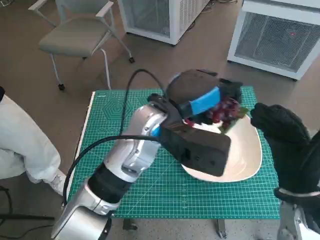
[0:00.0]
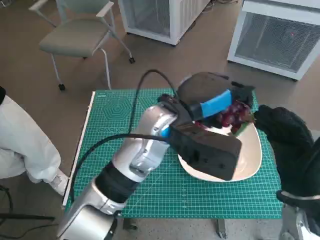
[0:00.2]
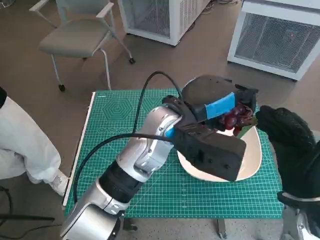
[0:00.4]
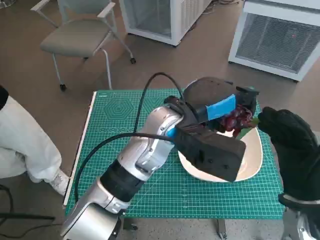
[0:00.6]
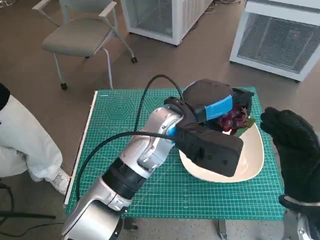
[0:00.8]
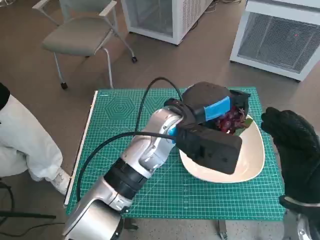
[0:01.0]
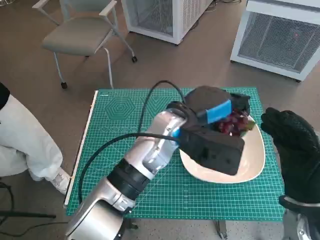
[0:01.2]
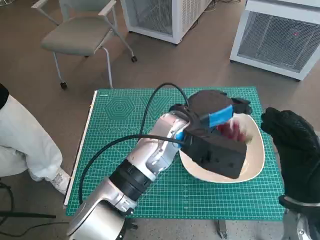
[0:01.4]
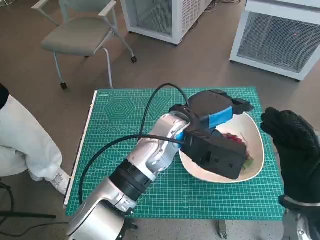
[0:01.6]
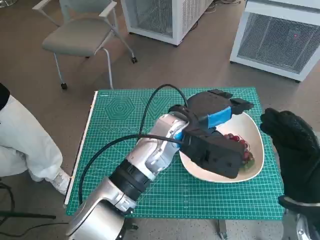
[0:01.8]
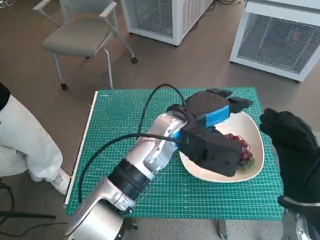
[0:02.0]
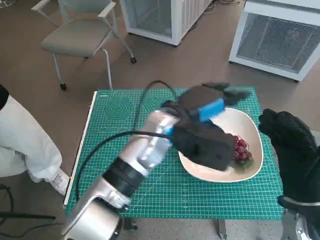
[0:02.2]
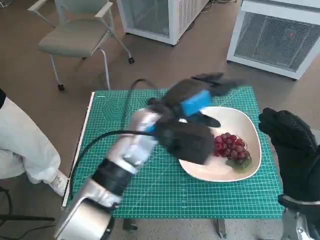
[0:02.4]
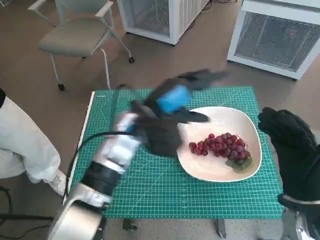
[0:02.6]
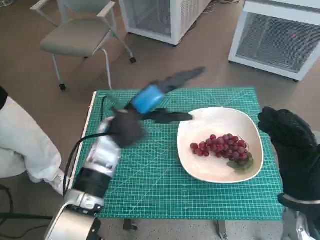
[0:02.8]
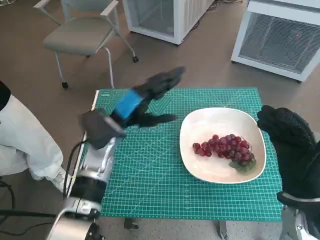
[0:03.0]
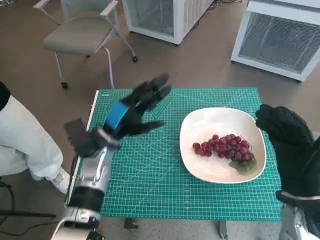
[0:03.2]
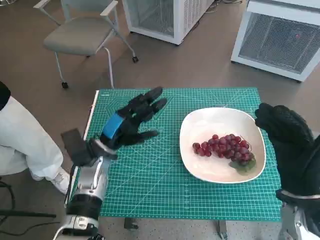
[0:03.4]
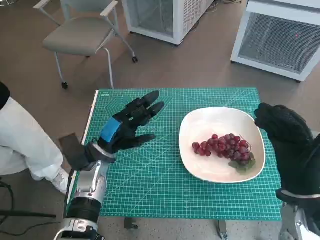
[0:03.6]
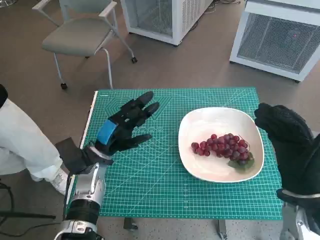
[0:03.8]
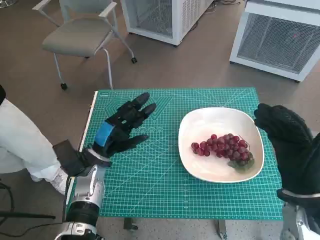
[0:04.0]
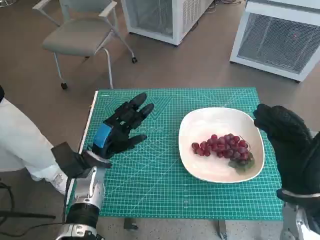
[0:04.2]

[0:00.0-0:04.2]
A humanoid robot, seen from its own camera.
Task of the whole recording: Pick up the grapes and put them on the plate.
1.4 to 2.8 s: The left hand shifts approximately 10 cm to the left.
2.8 to 4.2 s: The left hand is displaced downward and to the left by roughly 15 cm.

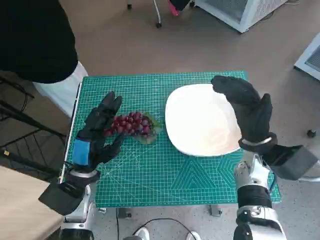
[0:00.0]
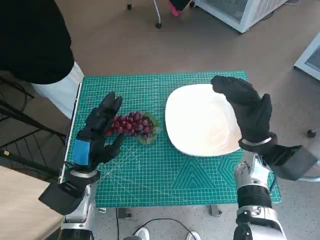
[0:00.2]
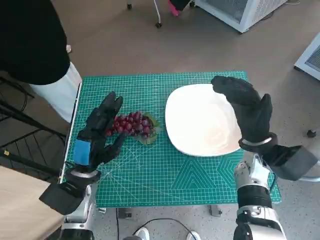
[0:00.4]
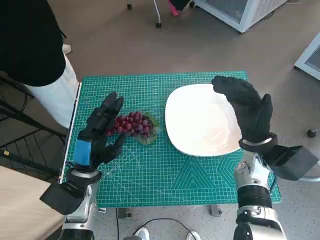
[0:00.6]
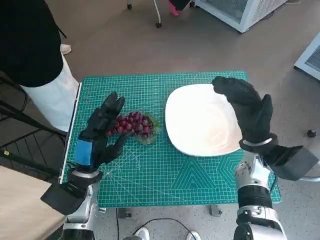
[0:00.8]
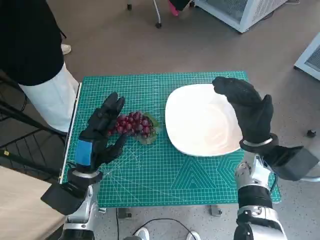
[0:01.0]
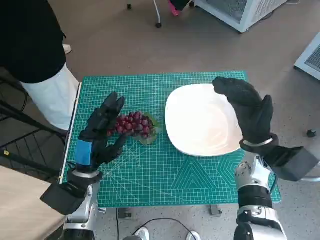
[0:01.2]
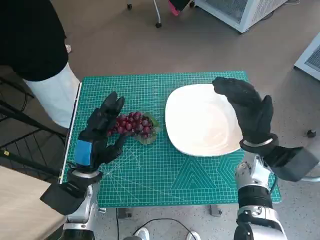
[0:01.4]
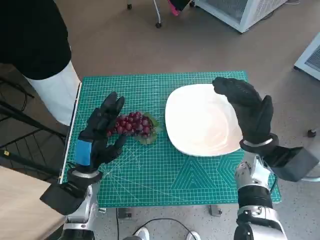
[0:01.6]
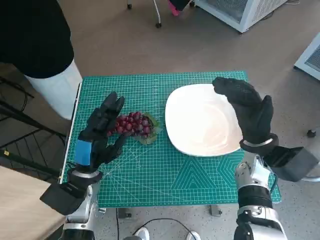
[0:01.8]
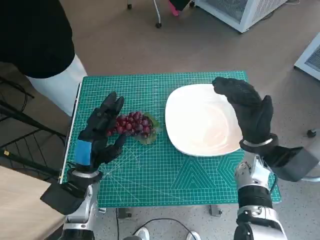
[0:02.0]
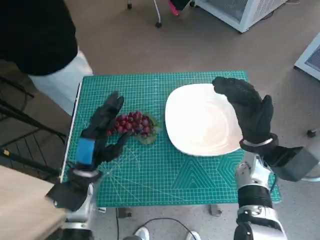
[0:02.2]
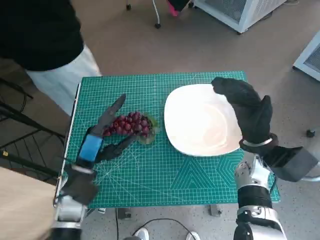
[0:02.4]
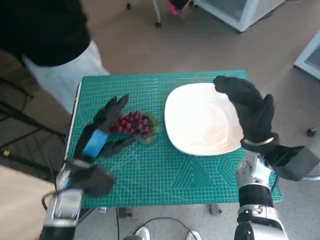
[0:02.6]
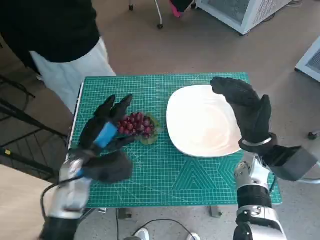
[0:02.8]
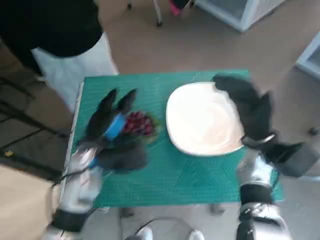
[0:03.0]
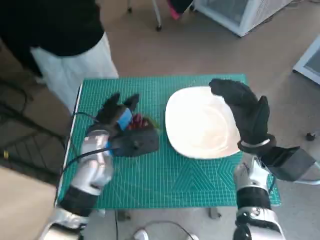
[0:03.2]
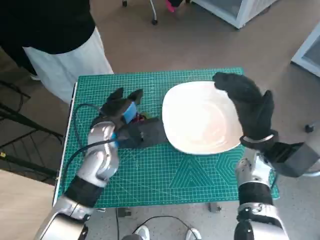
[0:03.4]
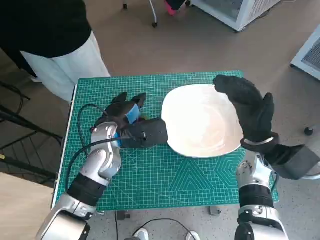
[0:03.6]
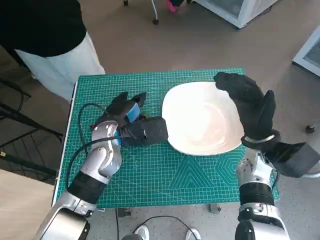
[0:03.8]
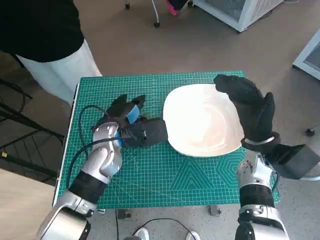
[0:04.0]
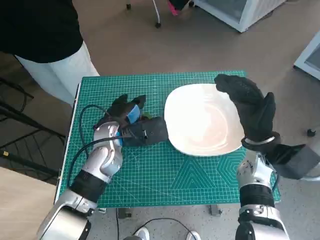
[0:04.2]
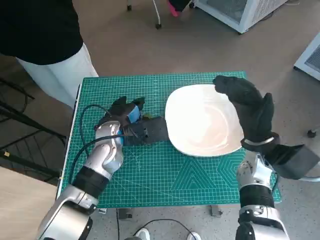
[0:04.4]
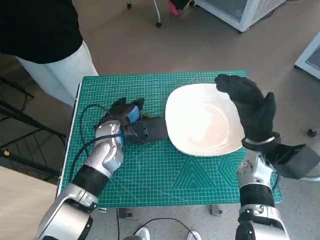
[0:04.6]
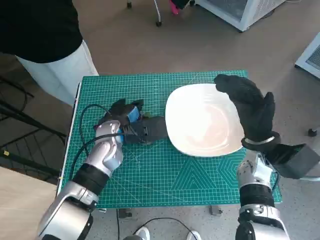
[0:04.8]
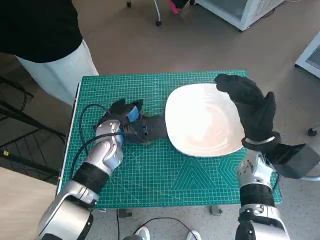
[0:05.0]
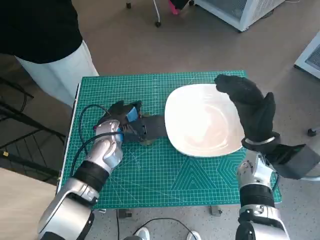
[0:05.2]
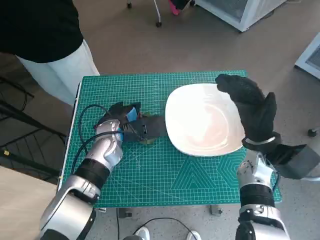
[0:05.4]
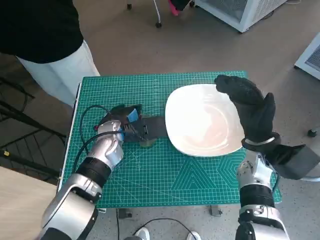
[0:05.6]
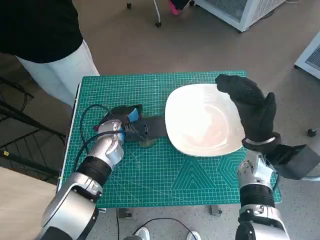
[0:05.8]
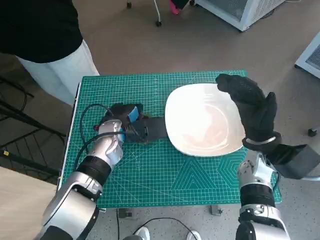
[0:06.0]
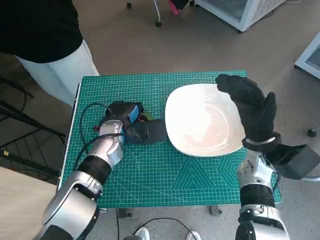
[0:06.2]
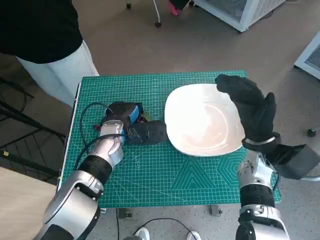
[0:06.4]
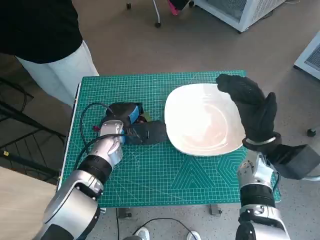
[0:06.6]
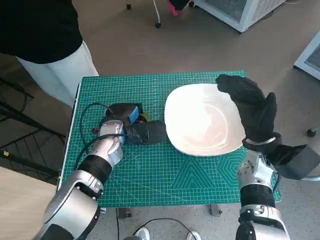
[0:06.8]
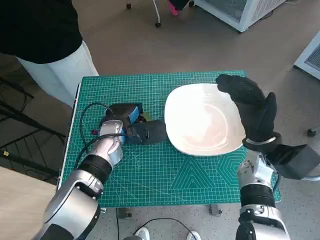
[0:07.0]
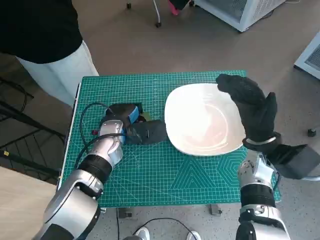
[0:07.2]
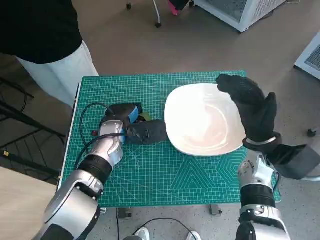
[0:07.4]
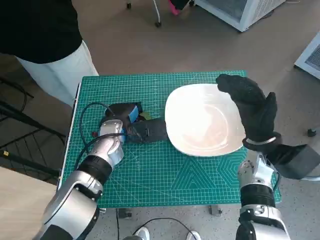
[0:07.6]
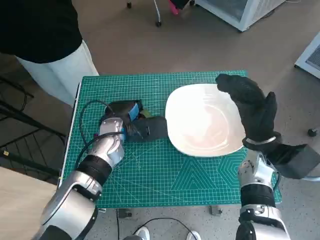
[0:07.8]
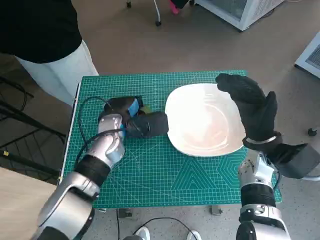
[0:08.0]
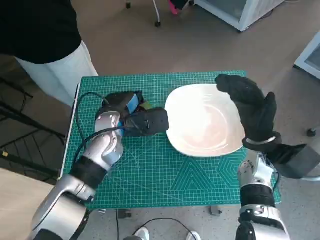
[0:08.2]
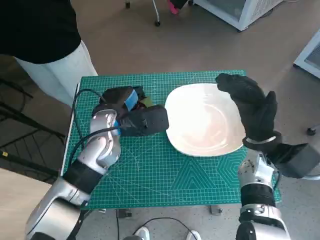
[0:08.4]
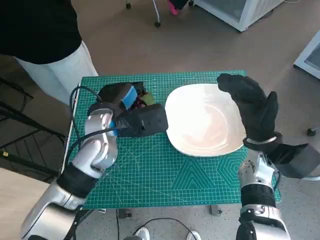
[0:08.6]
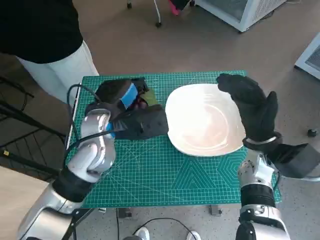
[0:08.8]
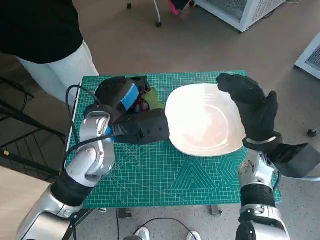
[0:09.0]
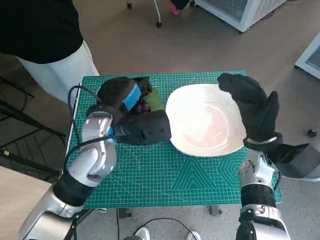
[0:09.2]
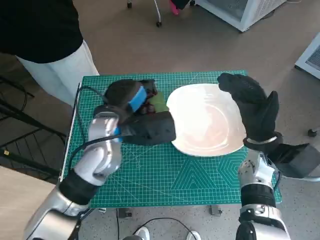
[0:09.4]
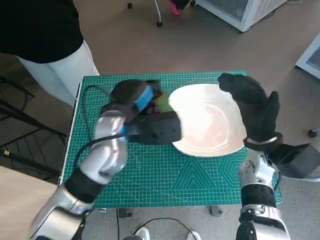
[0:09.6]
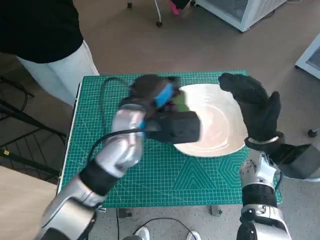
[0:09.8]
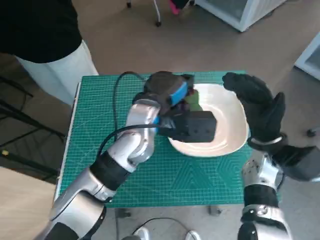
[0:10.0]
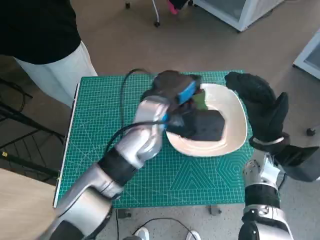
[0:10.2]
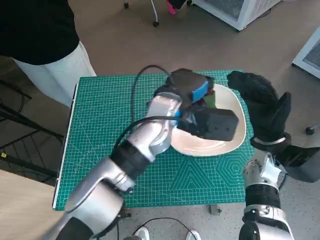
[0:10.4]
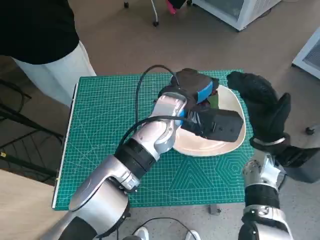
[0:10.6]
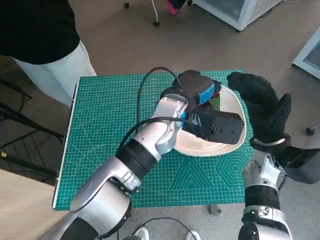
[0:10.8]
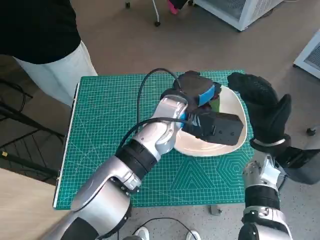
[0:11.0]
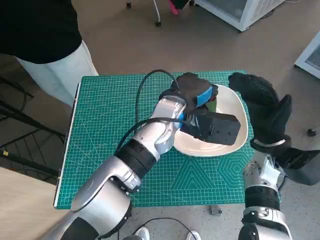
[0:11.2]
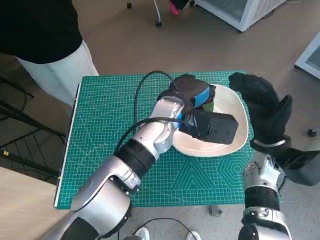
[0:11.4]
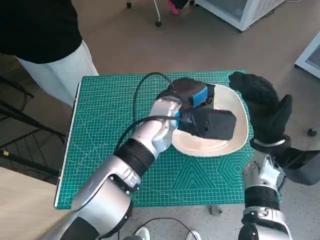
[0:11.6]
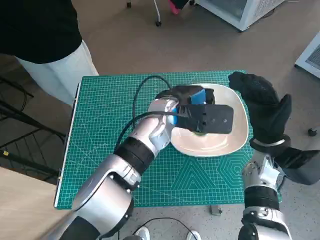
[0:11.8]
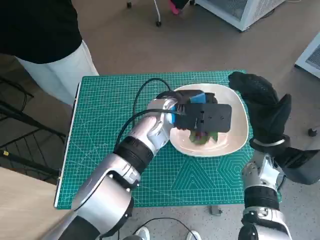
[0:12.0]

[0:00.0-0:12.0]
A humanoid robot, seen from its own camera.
Task of the whole recording: Pick up the grapes and put them on the plate.
Step, 0.0 to 7.2 s: Grasp the grapes with left hand.
1.6 to 3.0 s: The left hand moves roughly 5 cm.
3.0 to 4.4 s: The left hand travels forward by roughly 5 cm.
4.4 to 7.6 s: The hands stay close to where they were, moving slightly.
7.6 to 9.0 s: The left hand travels upward by about 10 cm.
9.0 to 10.4 s: The left hand moves to the right, some 10 cm.

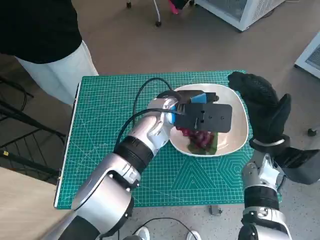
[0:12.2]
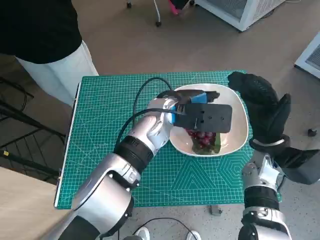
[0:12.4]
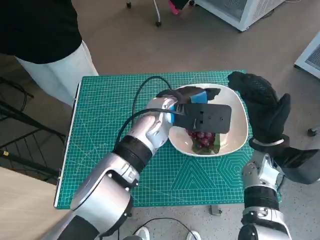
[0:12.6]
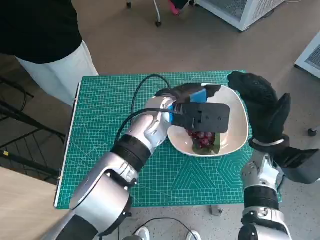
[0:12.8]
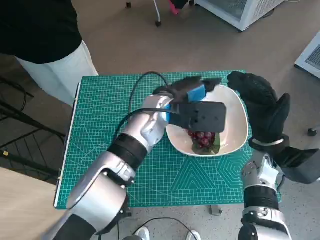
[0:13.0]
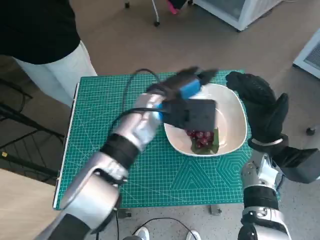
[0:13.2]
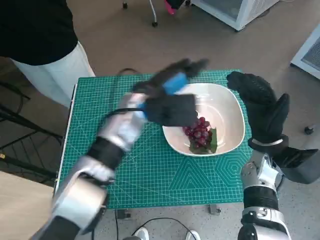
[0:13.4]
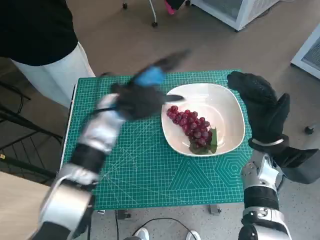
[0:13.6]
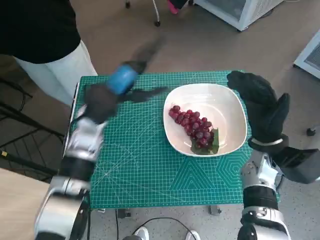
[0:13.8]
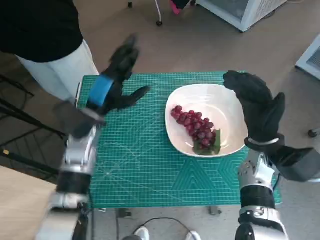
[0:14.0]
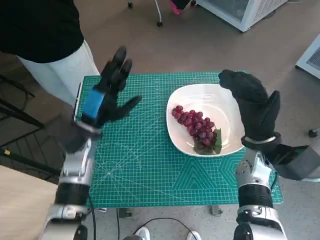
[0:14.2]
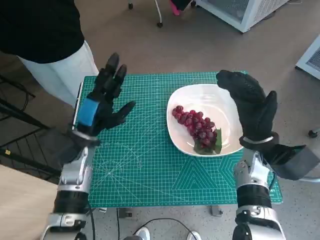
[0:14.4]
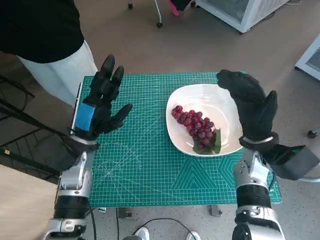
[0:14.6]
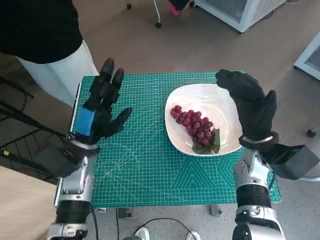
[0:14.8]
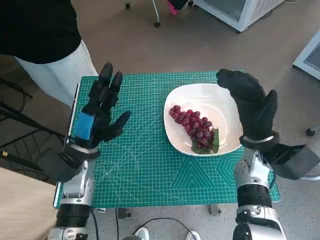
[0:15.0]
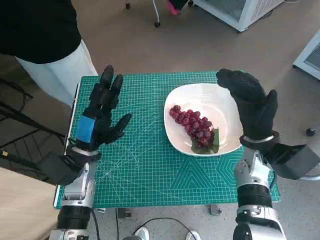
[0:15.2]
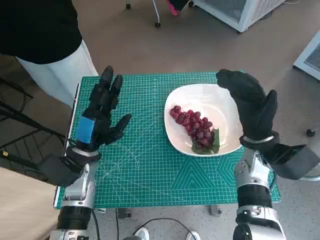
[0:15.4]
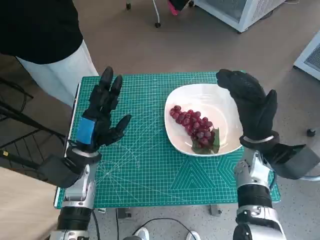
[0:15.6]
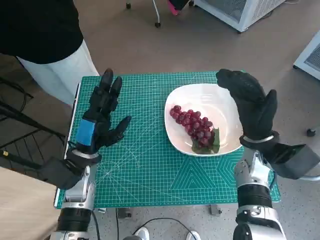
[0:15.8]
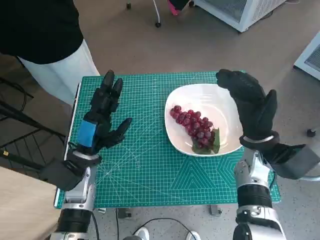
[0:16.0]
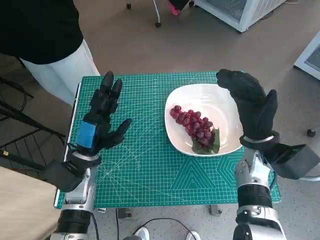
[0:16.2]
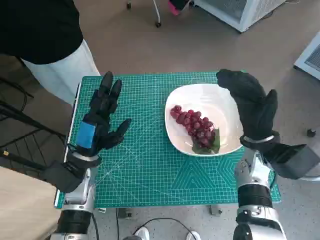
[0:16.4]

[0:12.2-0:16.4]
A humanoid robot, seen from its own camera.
Task of the whole recording: Pick up the grapes and put them on the plate.
12.2 to 13.6 s: The left hand goes some 10 cm to the left.
13.6 to 15.0 s: The left hand travels to the left, downward and backward by some 15 cm.
15.0 to 16.4 s: The hands make only small movements.

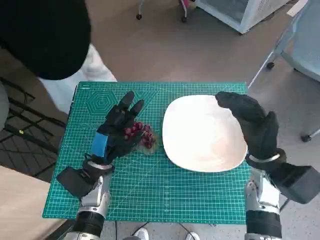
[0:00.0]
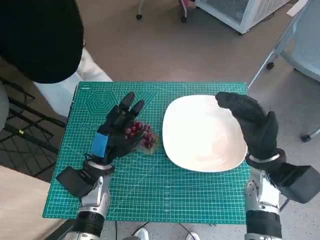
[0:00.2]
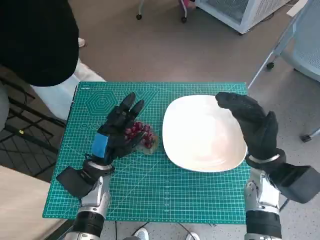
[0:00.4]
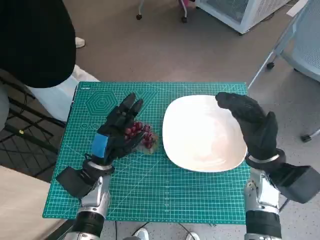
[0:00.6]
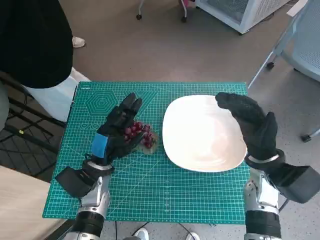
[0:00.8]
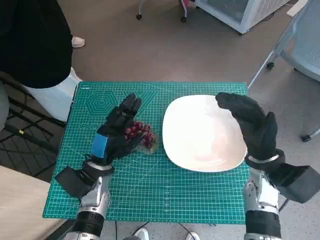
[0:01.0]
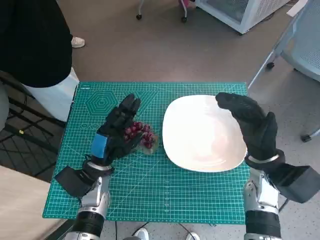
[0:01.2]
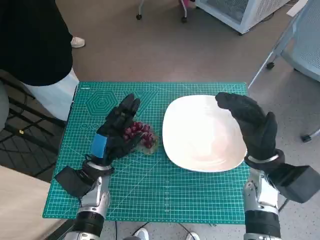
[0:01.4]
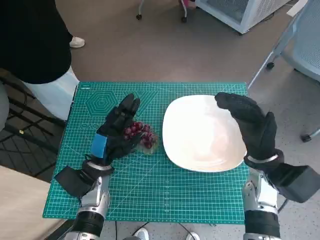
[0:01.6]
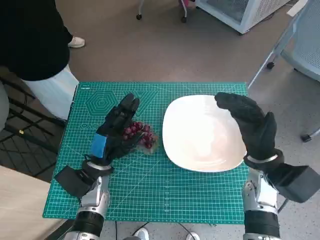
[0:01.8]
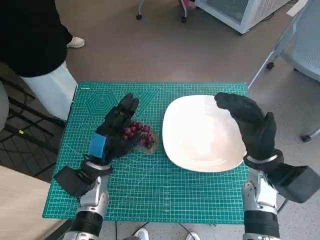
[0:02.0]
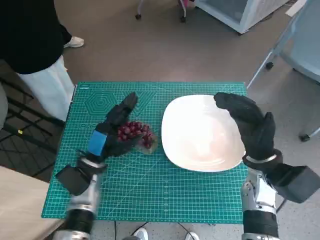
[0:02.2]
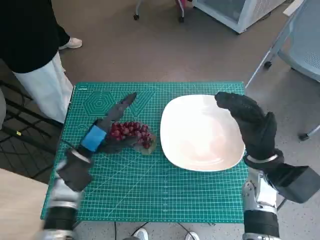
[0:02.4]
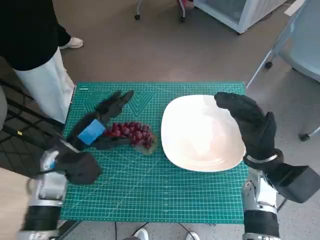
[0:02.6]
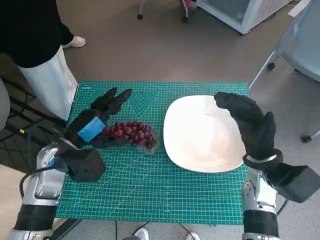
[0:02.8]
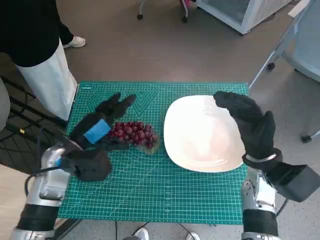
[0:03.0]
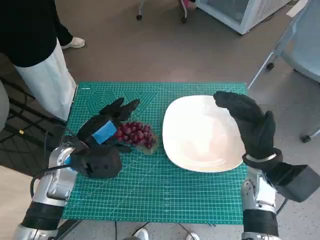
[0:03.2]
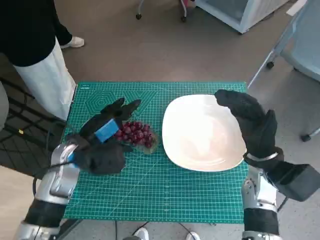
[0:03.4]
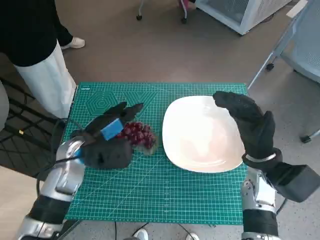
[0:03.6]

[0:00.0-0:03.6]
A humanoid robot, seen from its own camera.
Task of the whole recording: Pick up the grapes and put them on the plate.
1.8 to 3.6 s: The left hand shifts approximately 10 cm upward.
